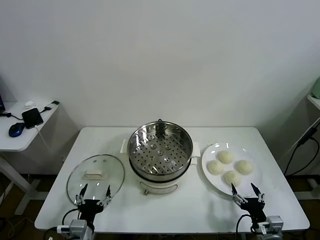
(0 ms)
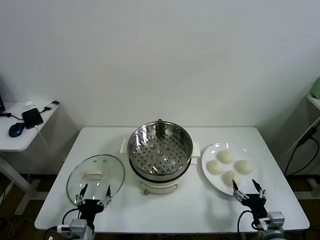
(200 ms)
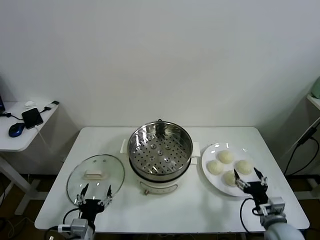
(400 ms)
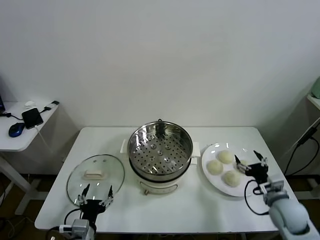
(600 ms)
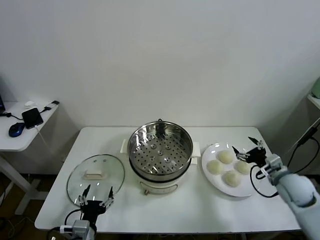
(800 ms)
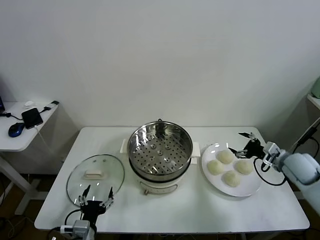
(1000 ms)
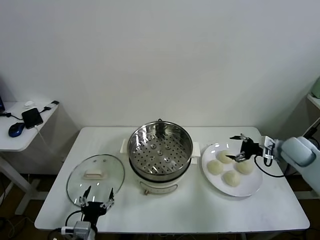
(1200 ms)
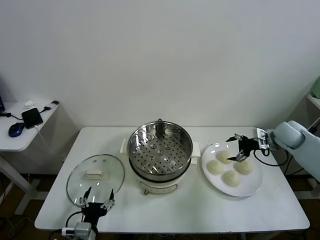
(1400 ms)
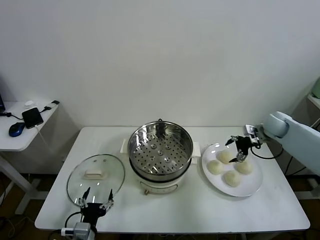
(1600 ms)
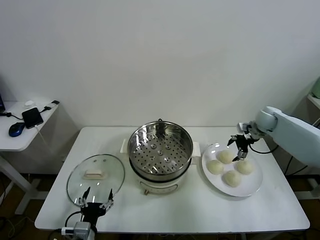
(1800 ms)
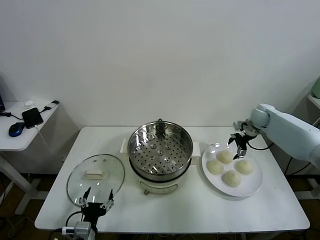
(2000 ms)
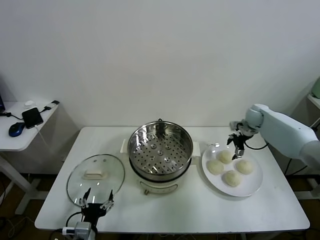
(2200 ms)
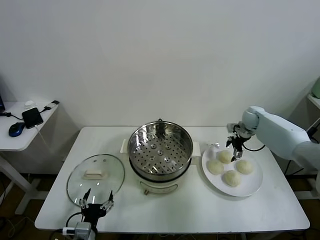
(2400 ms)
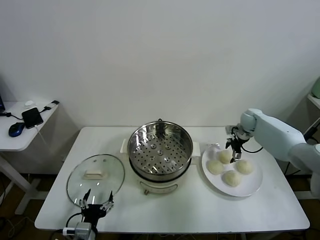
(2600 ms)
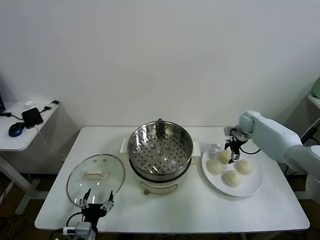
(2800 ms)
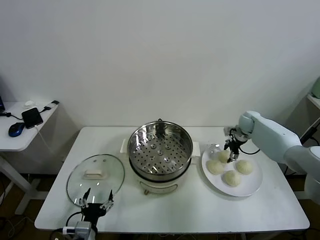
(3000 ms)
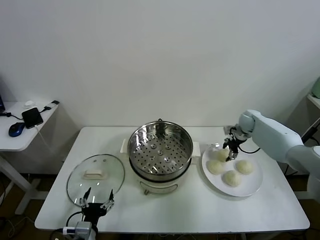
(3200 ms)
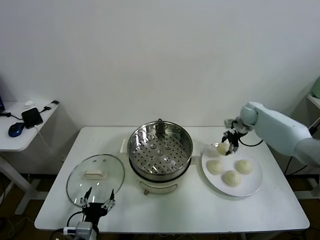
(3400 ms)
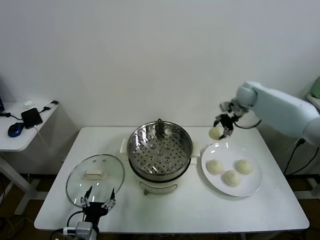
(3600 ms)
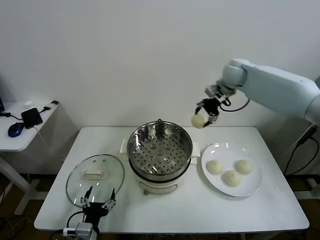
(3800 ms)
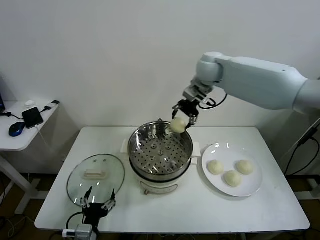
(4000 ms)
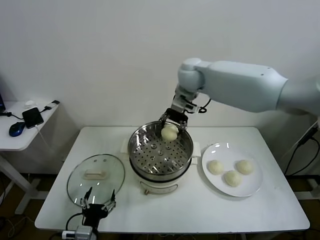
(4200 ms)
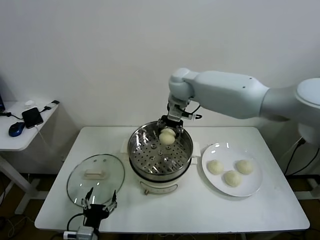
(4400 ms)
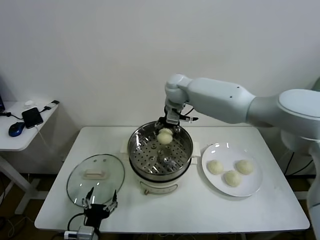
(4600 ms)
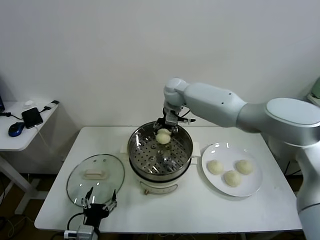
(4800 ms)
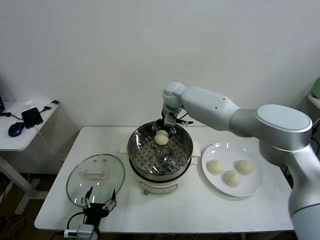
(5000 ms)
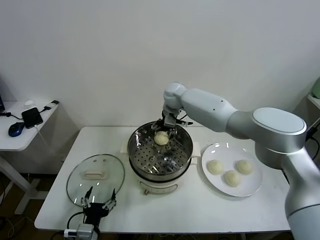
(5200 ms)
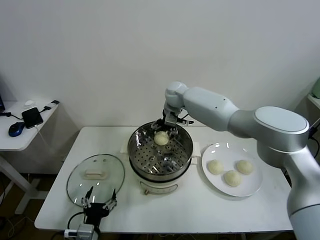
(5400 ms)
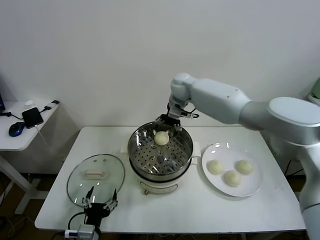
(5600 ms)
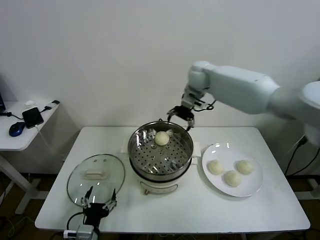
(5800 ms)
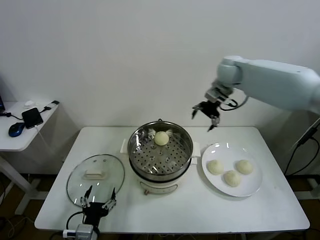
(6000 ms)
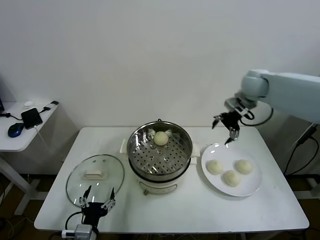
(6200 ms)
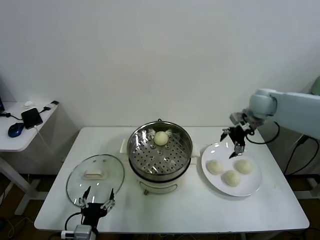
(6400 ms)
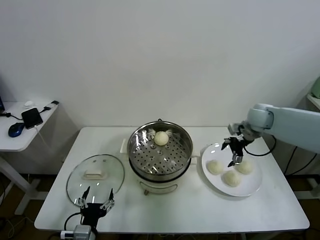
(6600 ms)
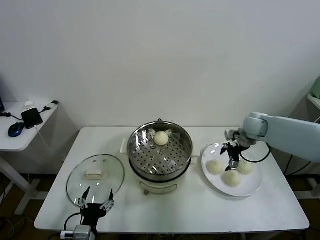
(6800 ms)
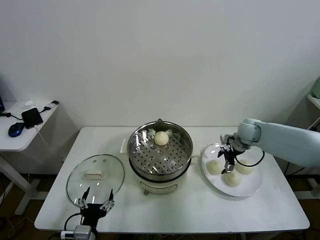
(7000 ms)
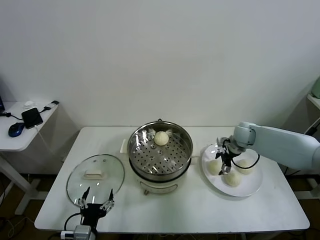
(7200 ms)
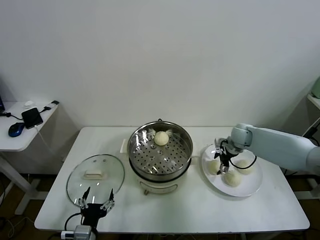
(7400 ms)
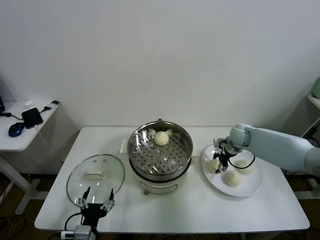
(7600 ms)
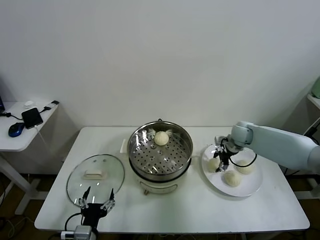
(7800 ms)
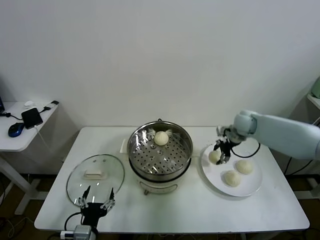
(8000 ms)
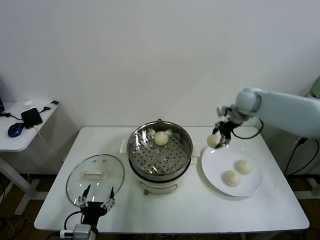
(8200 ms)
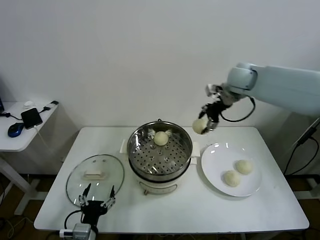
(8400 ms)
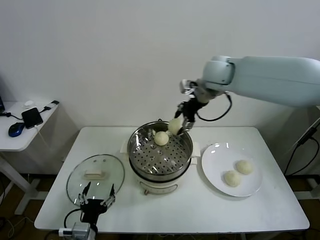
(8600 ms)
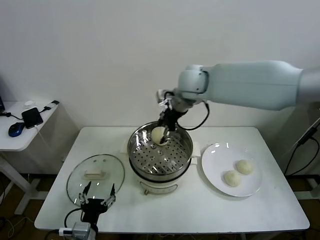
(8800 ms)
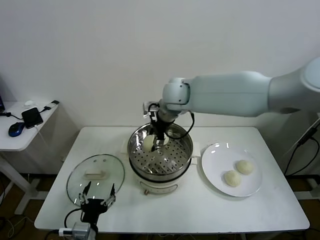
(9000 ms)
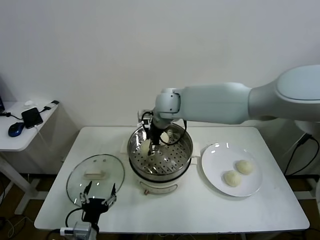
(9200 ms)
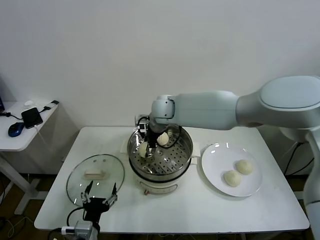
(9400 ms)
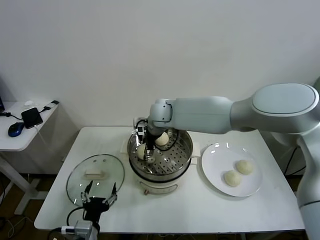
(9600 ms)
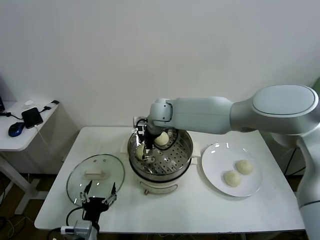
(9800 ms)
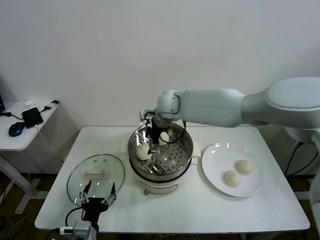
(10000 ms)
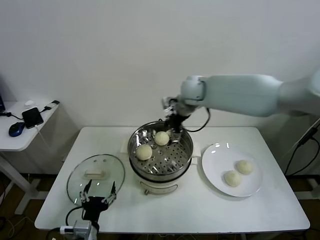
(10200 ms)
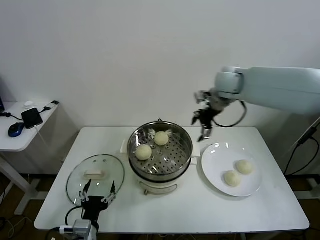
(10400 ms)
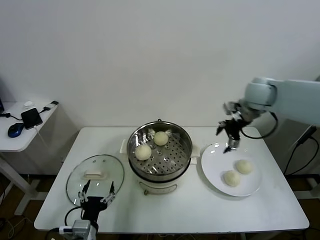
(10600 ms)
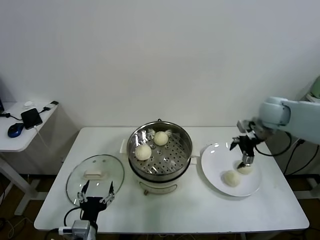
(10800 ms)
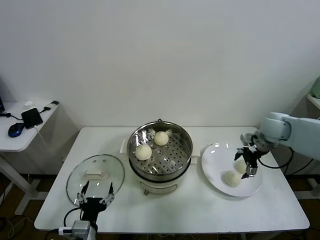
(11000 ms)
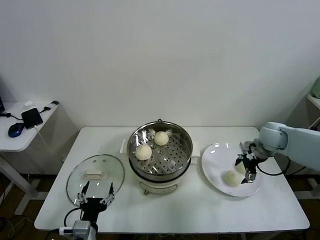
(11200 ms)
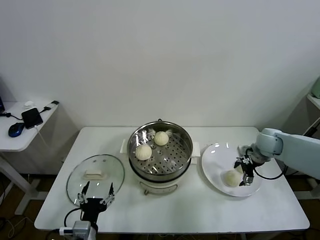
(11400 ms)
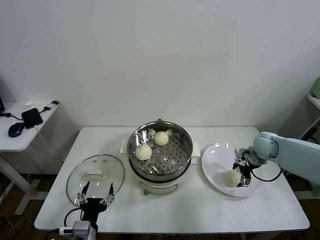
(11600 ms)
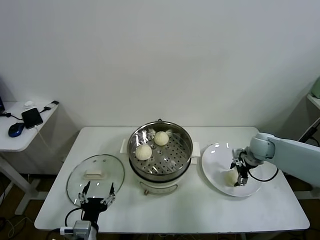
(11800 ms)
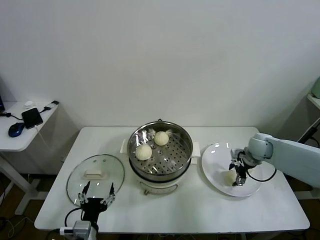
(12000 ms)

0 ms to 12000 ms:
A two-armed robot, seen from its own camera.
Task of the whole recording: take steamed baozi put them in steamer.
Step, 0 ms to 3000 ms: Grasp the baozi in the plate with right gripper.
Step, 3200 ms to 5400 ms: Place the baozi on the steamer with right gripper.
Step, 5600 ms to 7600 ms: Grasp the baozi in the plate with right gripper.
Step, 7800 ms to 9800 ms: Place the baozi on the steamer with right gripper.
1600 ms to 3000 ms: The right gripper heads downward and forward, covering about 10 cm, and closes up.
3000 ms to 4400 ms: The right gripper shifts about 40 cm to the left and upward.
4400 ms to 6000 ms: The right gripper shifts about 20 cm to the right, and opens up.
6000 ms to 7600 ms: The right gripper is displaced downward by about 25 cm, and closes its fingers.
7600 ms to 9000 ms: The right gripper is displaced to the left and upward by approximately 35 cm.
9000 ms to 10400 ms: The right gripper is displaced to the right by approximately 20 cm, and opens its fingers.
10400 ms to 12000 ms: The right gripper is displaced downward and to the right by about 25 cm, and closes up.

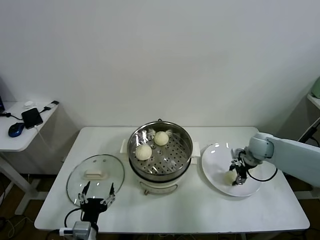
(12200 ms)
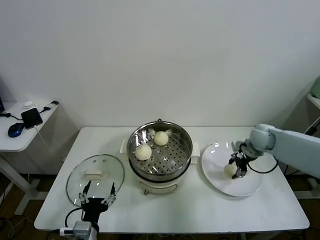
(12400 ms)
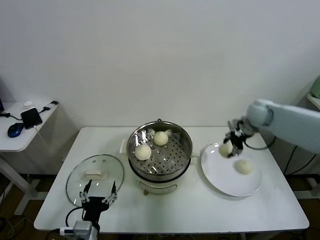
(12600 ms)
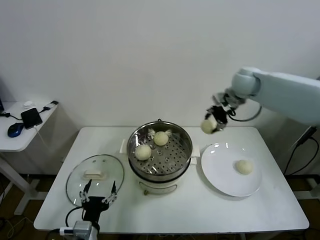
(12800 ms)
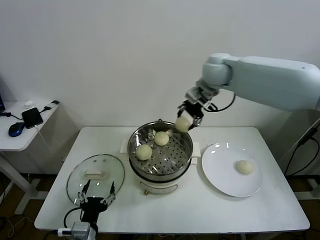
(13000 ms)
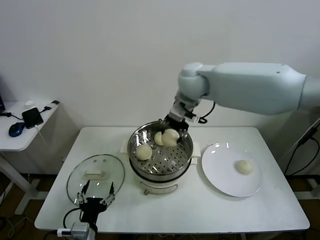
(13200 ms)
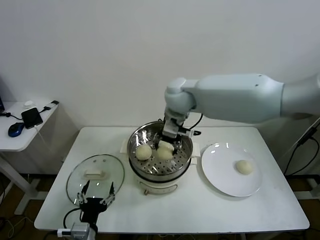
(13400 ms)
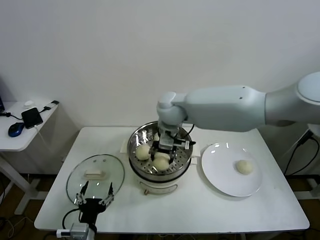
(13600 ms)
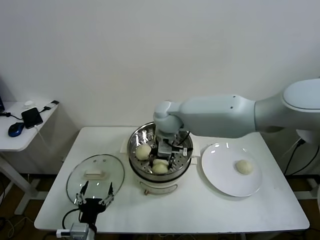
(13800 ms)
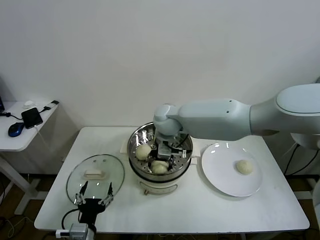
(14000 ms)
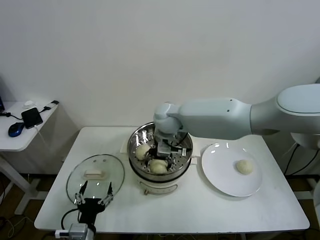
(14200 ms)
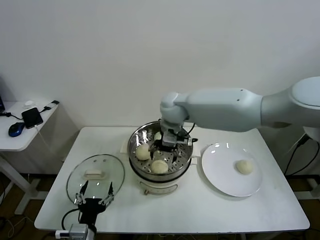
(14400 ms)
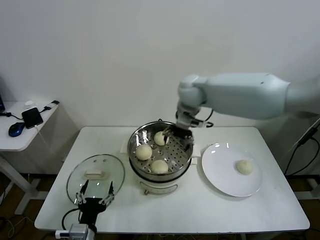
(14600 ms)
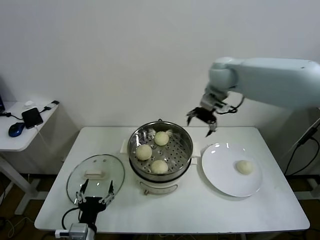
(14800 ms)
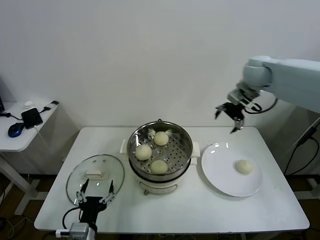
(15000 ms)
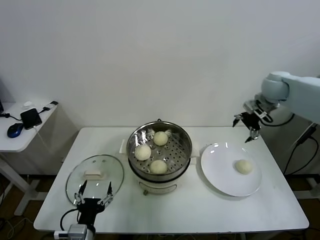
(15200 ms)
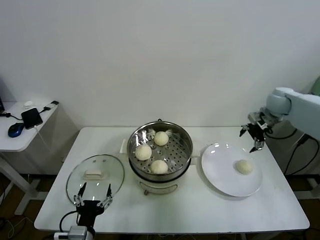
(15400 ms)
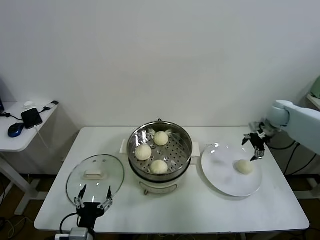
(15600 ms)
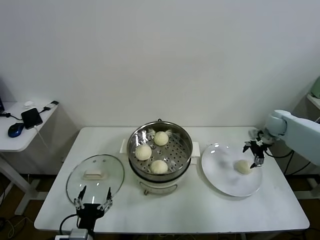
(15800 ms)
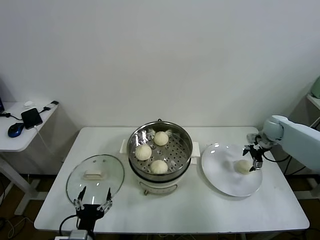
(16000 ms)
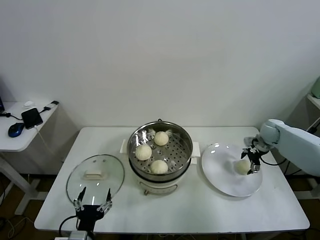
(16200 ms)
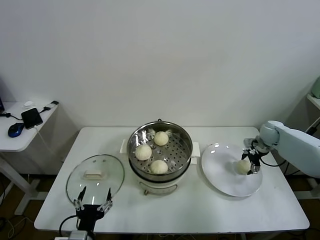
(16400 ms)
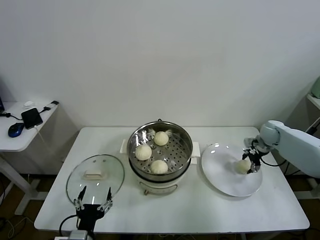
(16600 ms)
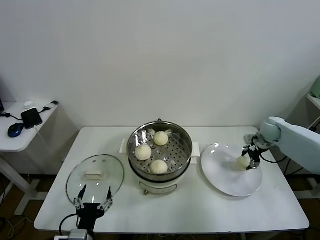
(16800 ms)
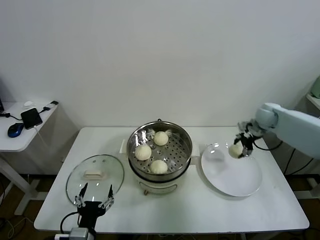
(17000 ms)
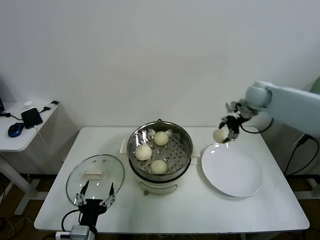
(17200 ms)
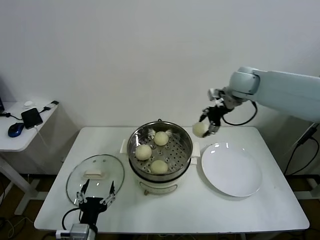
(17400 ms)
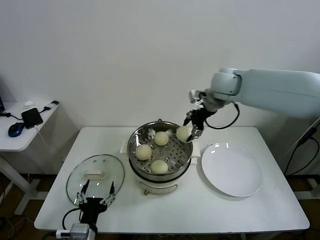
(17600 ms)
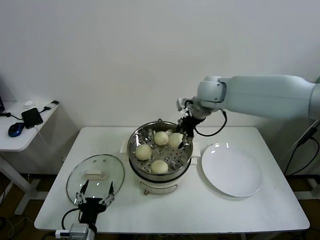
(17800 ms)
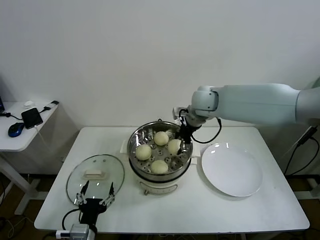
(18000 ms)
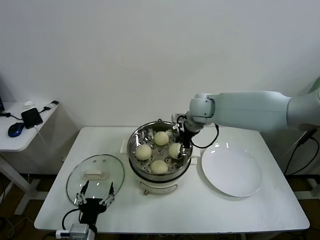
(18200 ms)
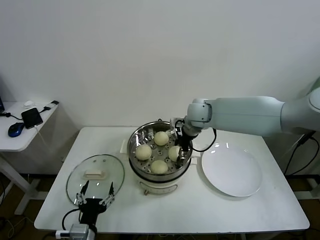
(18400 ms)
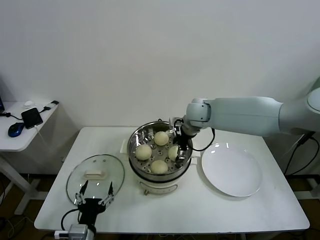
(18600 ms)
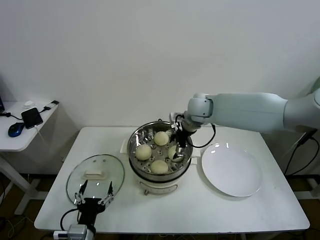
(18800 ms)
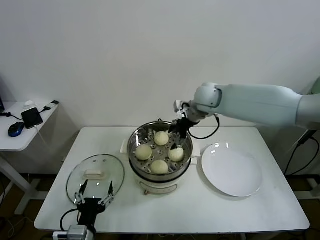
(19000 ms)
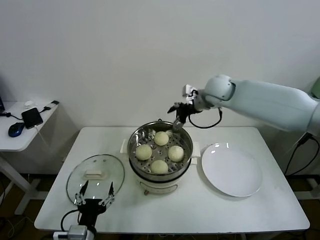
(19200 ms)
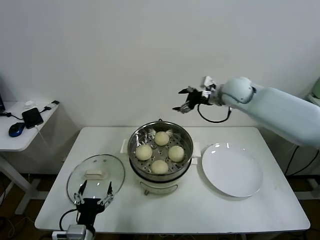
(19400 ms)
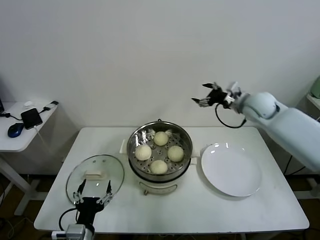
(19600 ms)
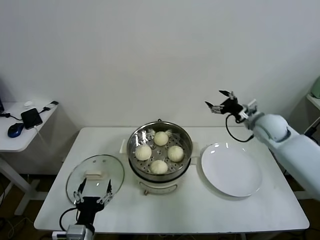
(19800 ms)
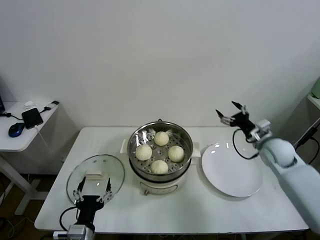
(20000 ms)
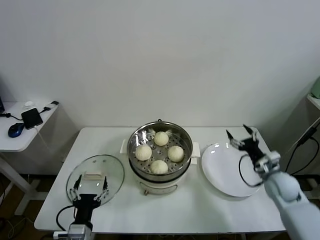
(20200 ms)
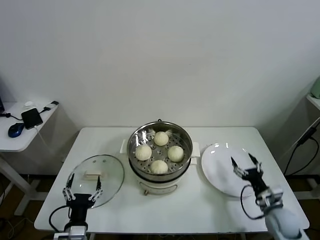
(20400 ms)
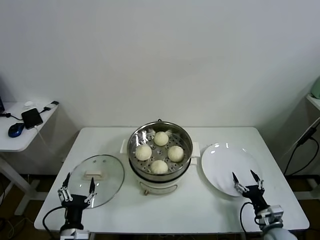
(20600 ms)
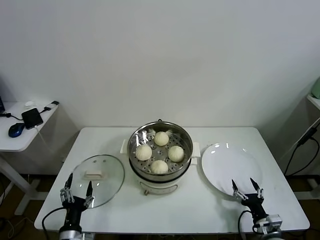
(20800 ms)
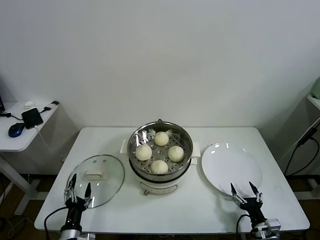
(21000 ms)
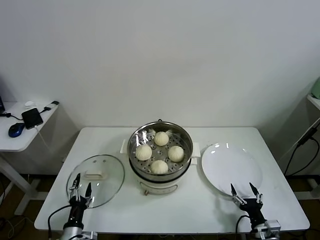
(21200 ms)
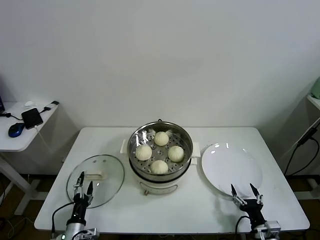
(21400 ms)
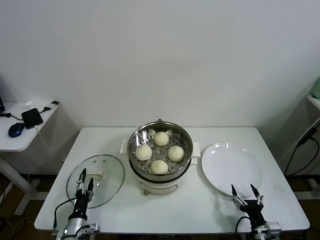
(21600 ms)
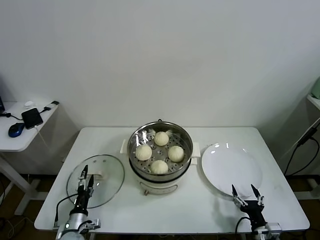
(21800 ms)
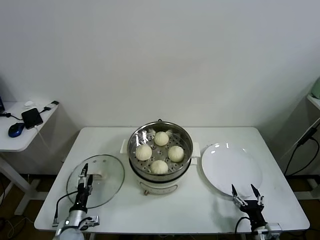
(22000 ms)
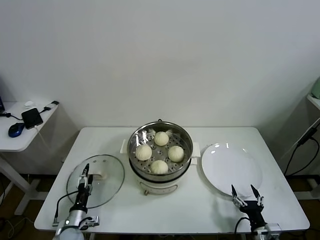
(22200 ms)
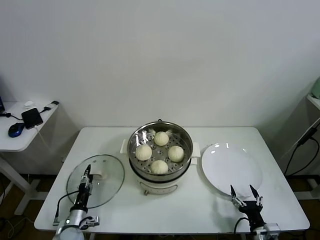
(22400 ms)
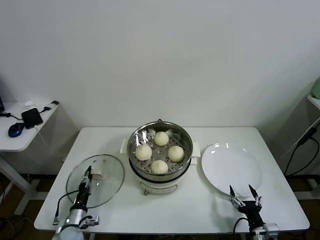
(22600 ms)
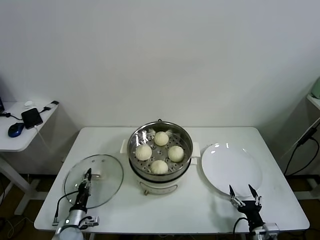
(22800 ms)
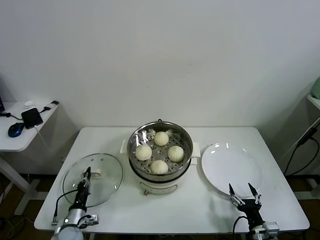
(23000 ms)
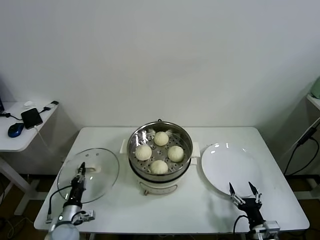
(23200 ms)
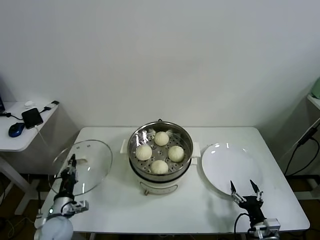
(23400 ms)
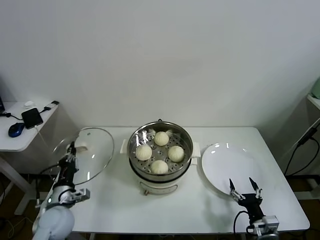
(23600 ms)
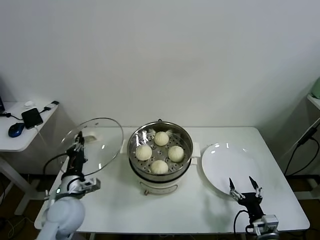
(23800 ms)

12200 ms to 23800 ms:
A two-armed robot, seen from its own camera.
Task of the whole recording: take steamed baozi put them in steamer.
Step, 12200 ms to 14200 ms: Place the baozi on the steamer with right gripper.
Step, 14400 ms to 16400 ms: Grasp the baozi in the plate with right gripper.
Step, 16600 ms to 18600 ms: Place the baozi on the steamer with right gripper.
Step, 18800 ms to 22800 ms: Grasp the pot lid with left gripper.
12200 ms to 13600 ms: The right gripper goes some 40 cm to the left and upward.
13600 ms to 15000 ms: The right gripper travels to the right by some 30 cm, and opens up.
15000 ms to 16600 ms: The right gripper is displaced downward and to the right by roughly 30 cm, and closes its fingers.
16600 ms to 18000 ms: The right gripper is displaced to the left and upward by roughly 35 cm.
18000 ms to 19400 ms: The right gripper travels to the right by approximately 10 cm, and opens up.
19400 ms to 21000 ms: The right gripper heads downward and backward, covering about 50 cm, while the left gripper heads downward and to the left, covering about 15 cm.
21000 ms to 22400 ms: The left gripper moves forward and downward, some 10 cm.
22400 ms to 23800 ms: The left gripper shifts some 20 cm upward, and closes its fingers.
